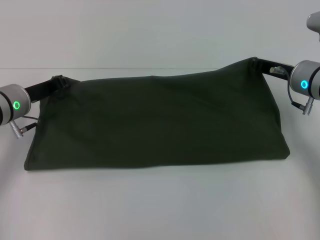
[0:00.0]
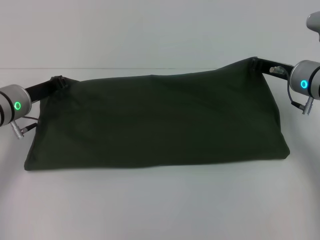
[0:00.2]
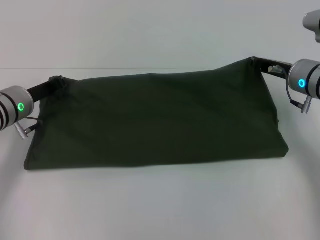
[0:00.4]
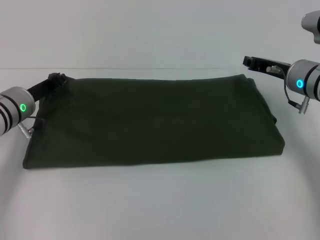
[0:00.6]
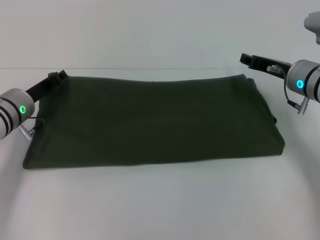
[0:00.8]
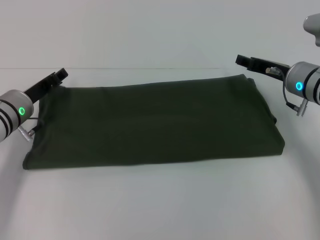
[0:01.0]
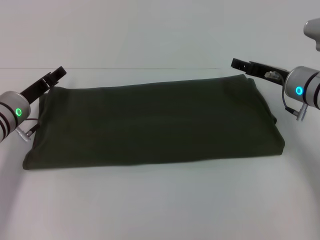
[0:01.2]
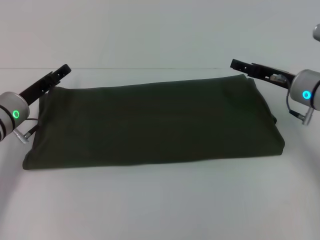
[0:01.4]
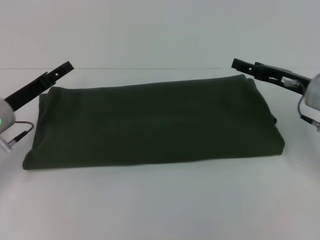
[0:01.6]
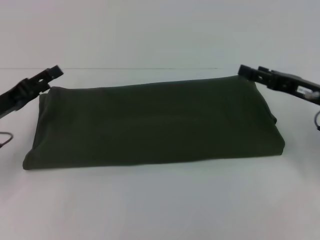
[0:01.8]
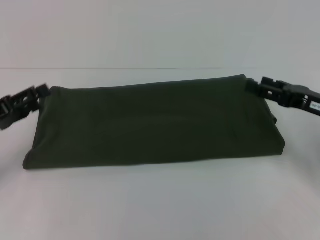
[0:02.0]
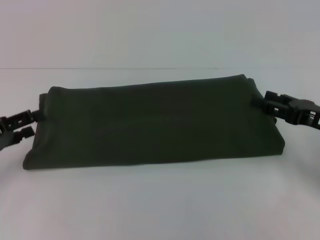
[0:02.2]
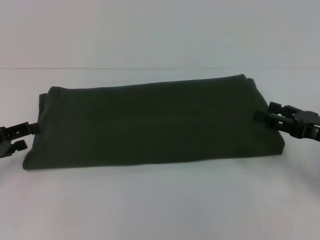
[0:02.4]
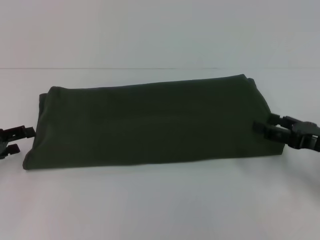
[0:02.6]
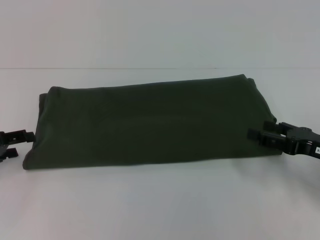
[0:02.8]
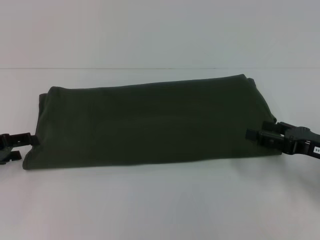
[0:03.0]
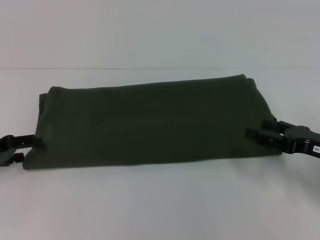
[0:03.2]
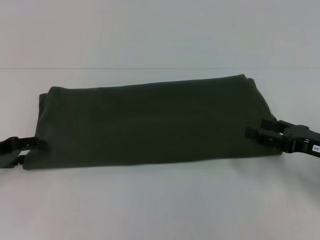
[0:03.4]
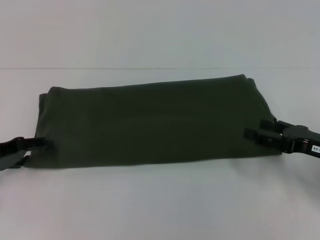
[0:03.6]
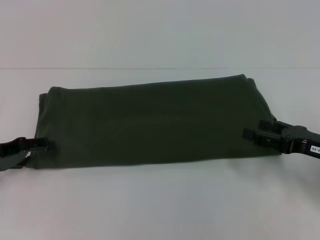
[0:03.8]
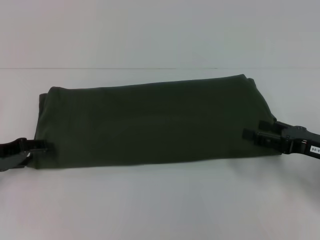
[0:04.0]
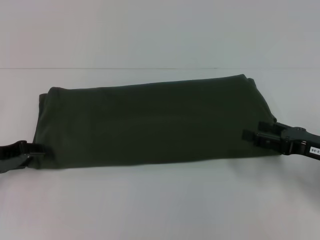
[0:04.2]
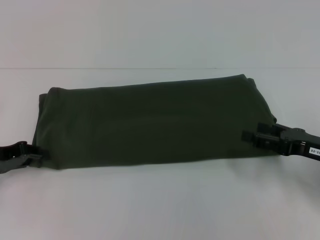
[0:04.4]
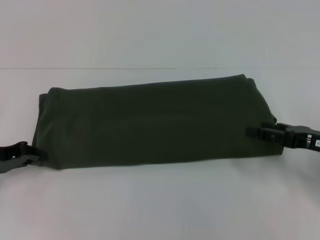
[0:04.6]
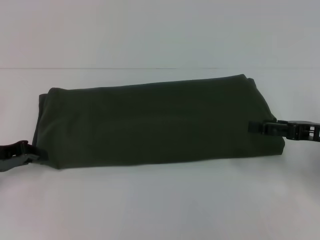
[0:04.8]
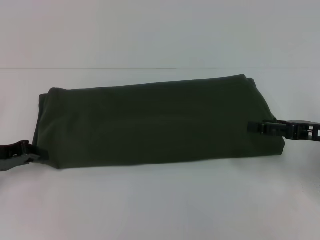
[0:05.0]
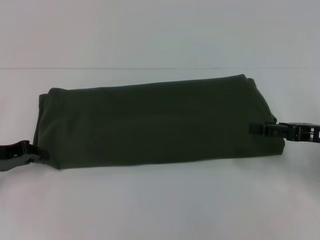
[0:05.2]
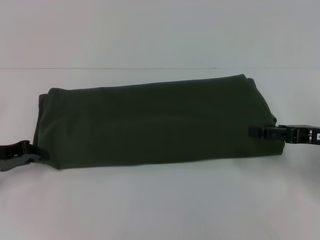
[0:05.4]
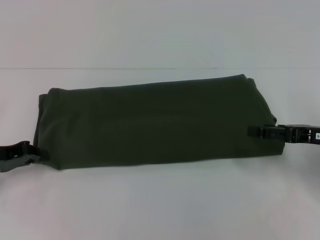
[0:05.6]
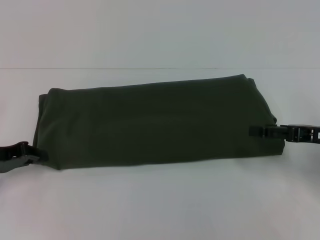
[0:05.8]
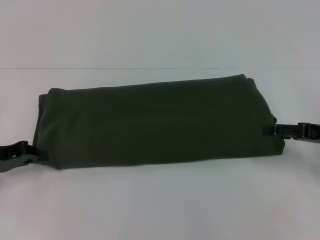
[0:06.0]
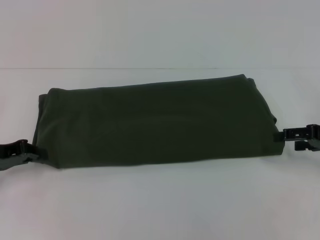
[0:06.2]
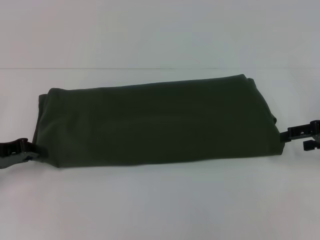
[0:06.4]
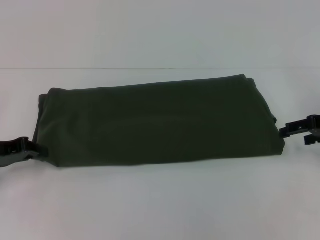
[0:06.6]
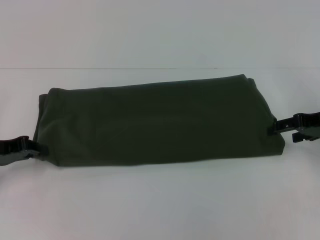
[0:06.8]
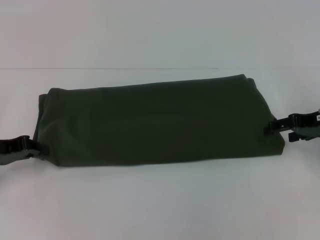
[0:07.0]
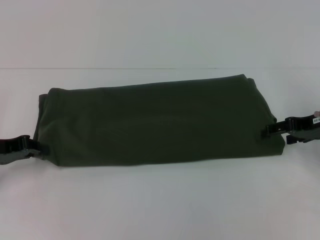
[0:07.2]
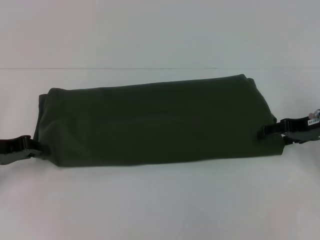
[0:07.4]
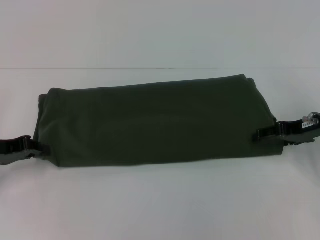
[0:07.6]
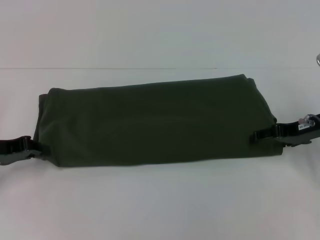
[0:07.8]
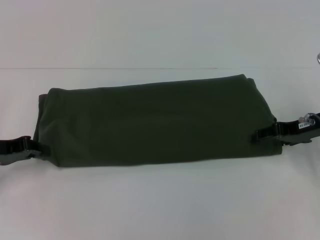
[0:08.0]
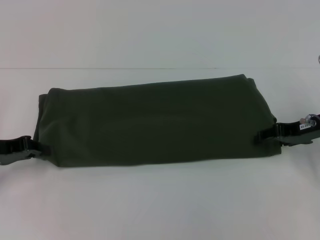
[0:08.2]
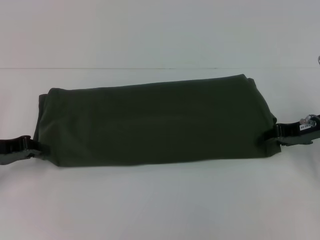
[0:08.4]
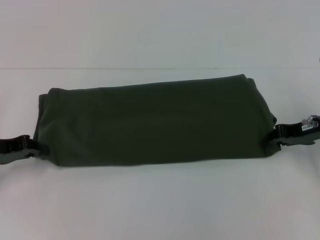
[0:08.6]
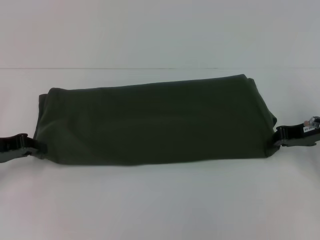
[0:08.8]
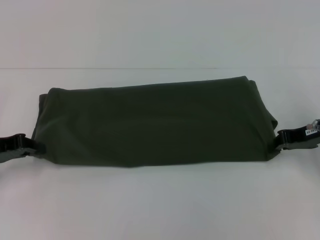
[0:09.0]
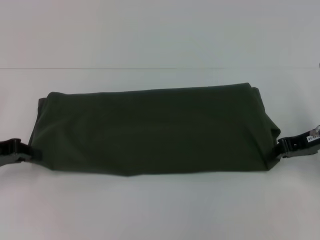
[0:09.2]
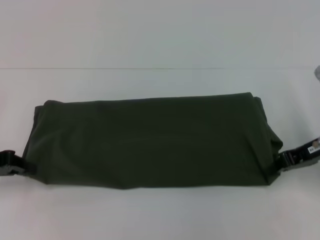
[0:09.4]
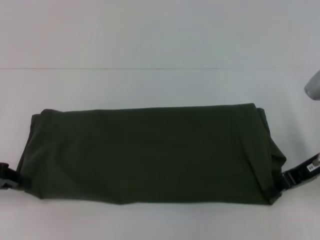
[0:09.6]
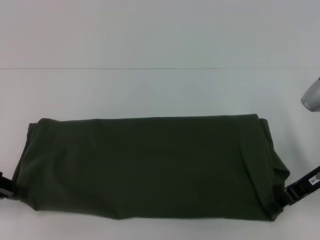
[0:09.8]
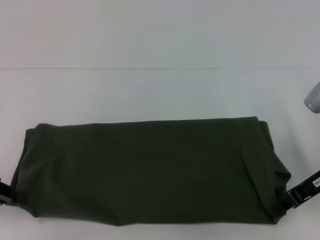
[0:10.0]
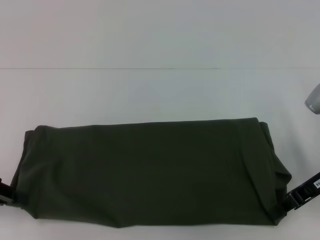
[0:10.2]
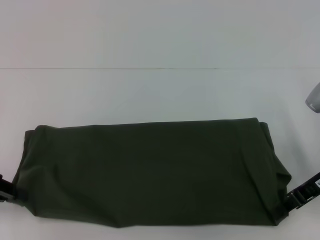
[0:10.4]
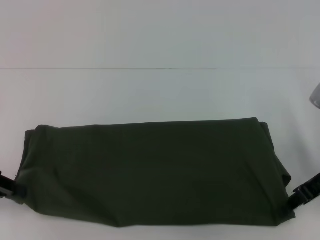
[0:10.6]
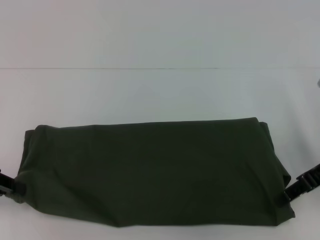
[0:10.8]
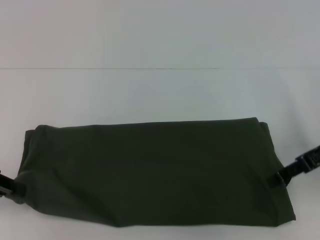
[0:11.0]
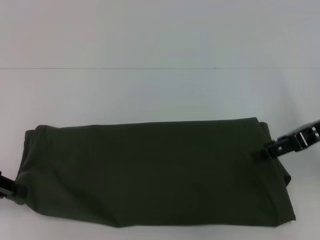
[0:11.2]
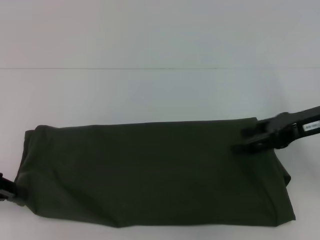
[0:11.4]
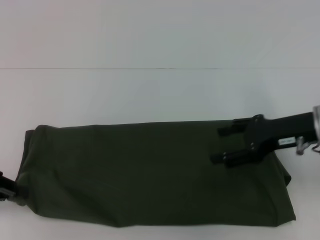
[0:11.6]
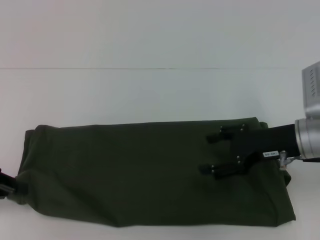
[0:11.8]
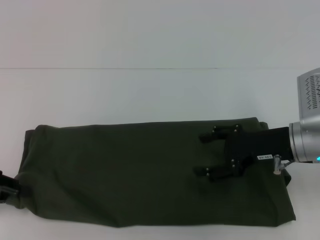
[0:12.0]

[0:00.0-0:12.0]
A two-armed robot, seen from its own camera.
0:00.0 to 0:01.6: The left gripper opens. Meanwhile the right gripper opens its fingers.
0:01.6 to 0:03.0: The right gripper shifts some 10 cm backward. Meanwhile the left gripper moves to the left, about 10 cm.
0:03.0 to 0:04.4: The left gripper closes its fingers.
0:04.4 to 0:06.0: The right gripper shifts by some 5 cm.
0:06.0 to 0:07.6: The right gripper travels forward by roughly 5 cm.
0:07.6 to 0:09.0: The right gripper closes.
0:09.0 to 0:10.4: The right gripper moves about 5 cm, while the left gripper moves roughly 5 cm.
0:10.4 to 0:12.0: The right gripper travels to the left by some 5 cm, reaches some 5 cm upward, then returns, and opens up.

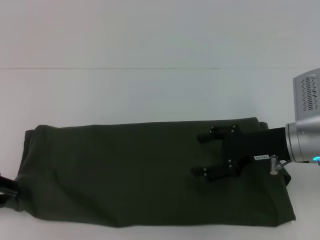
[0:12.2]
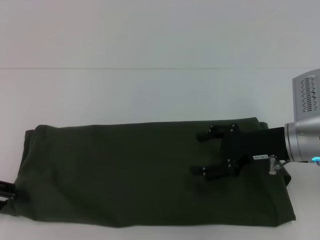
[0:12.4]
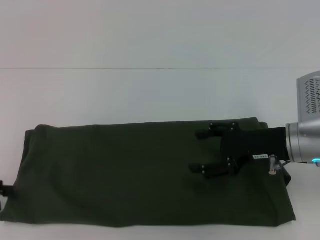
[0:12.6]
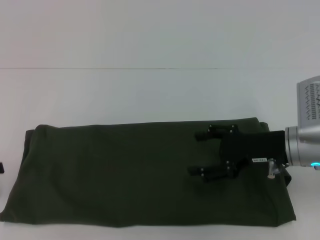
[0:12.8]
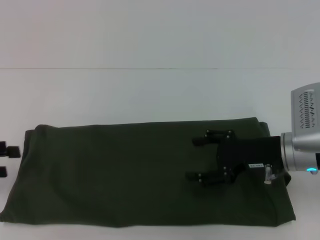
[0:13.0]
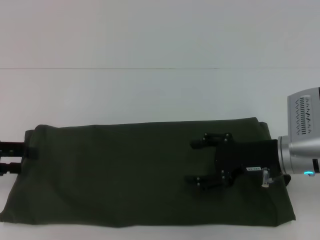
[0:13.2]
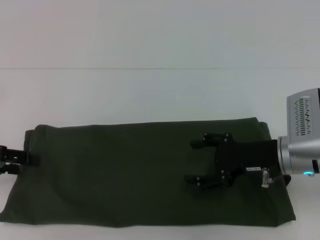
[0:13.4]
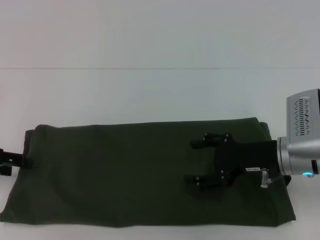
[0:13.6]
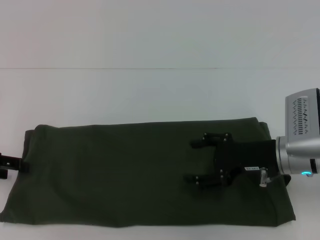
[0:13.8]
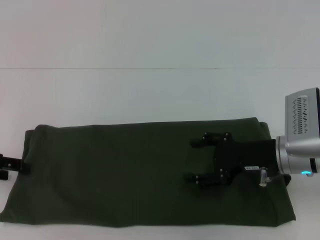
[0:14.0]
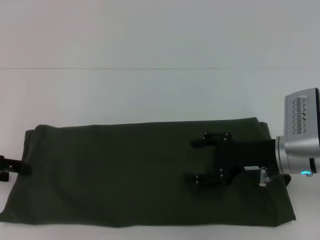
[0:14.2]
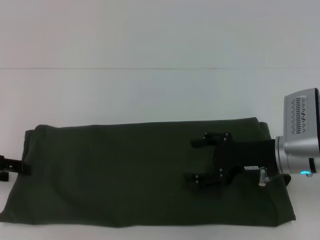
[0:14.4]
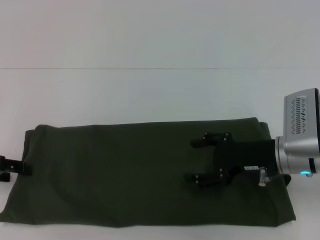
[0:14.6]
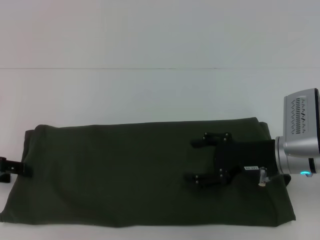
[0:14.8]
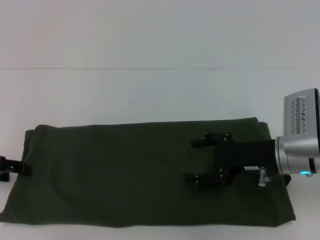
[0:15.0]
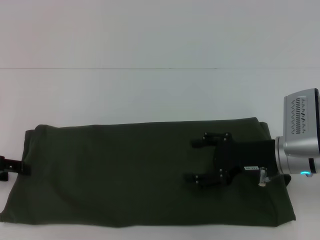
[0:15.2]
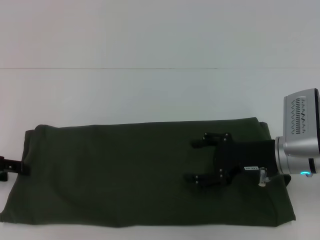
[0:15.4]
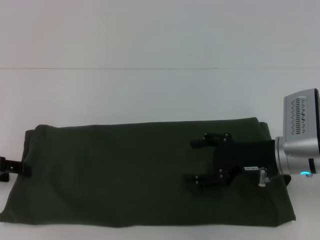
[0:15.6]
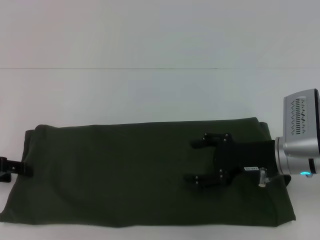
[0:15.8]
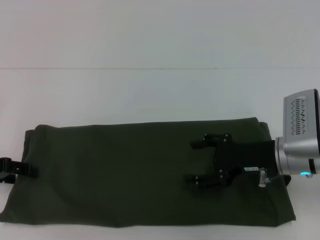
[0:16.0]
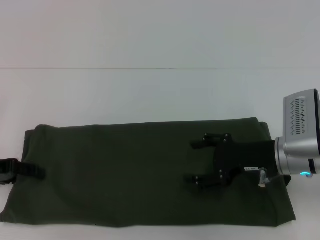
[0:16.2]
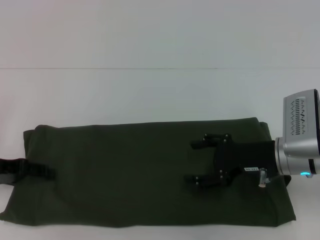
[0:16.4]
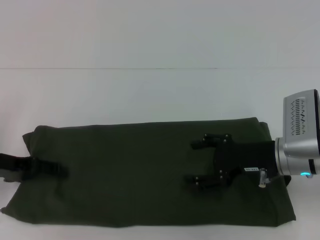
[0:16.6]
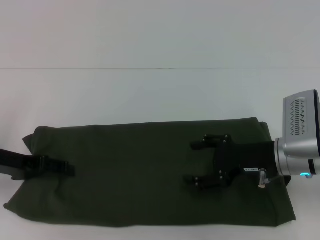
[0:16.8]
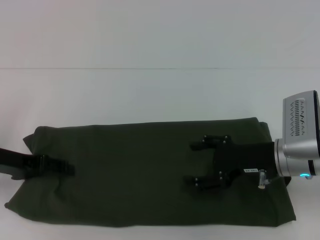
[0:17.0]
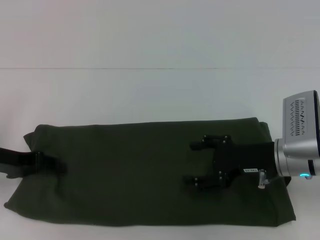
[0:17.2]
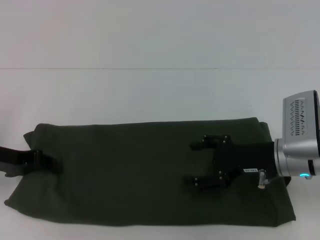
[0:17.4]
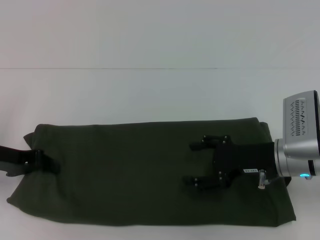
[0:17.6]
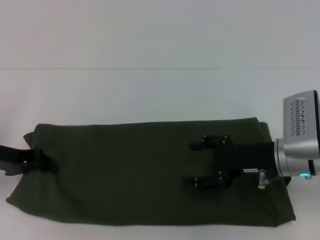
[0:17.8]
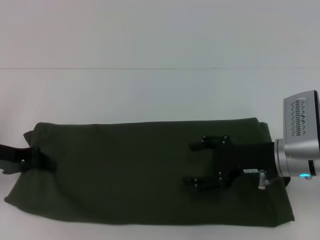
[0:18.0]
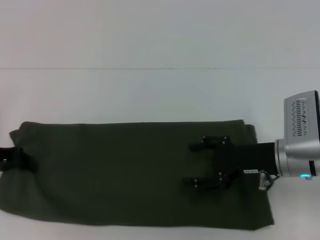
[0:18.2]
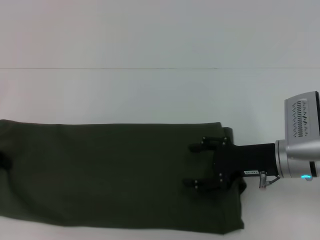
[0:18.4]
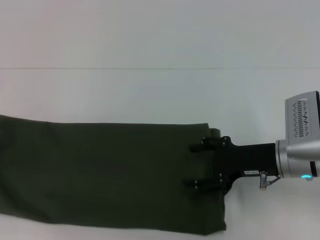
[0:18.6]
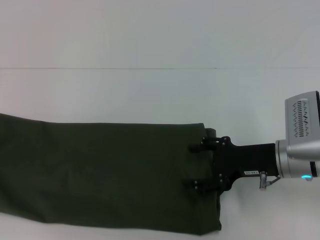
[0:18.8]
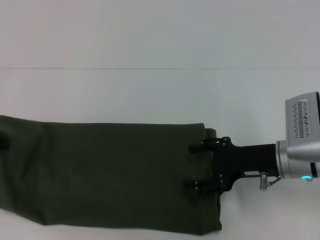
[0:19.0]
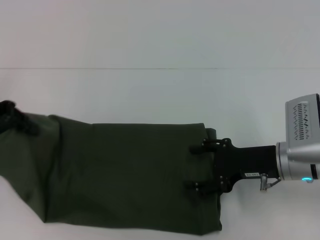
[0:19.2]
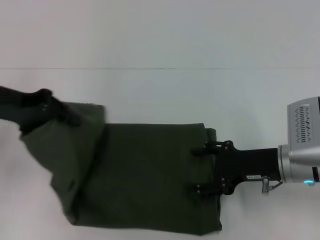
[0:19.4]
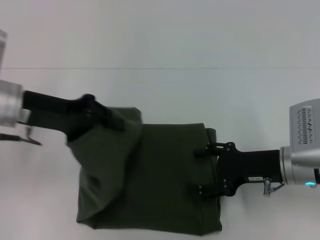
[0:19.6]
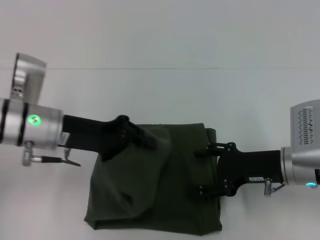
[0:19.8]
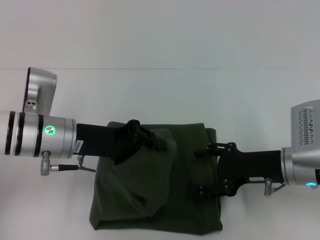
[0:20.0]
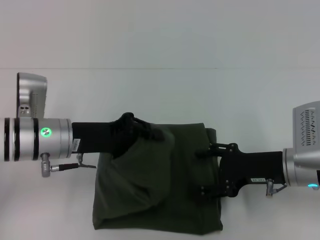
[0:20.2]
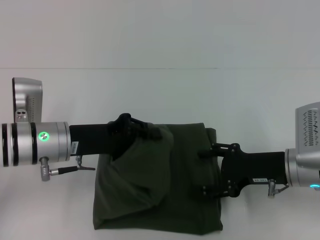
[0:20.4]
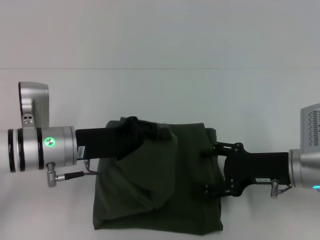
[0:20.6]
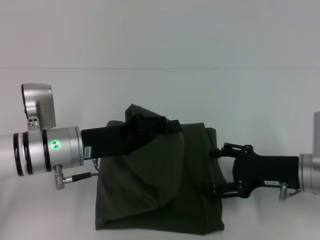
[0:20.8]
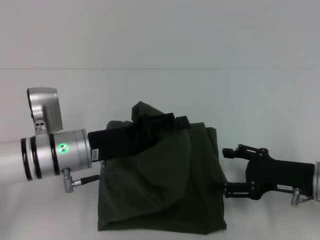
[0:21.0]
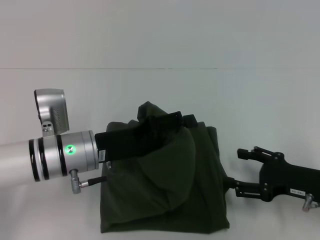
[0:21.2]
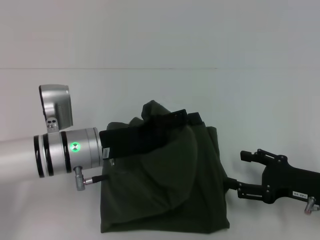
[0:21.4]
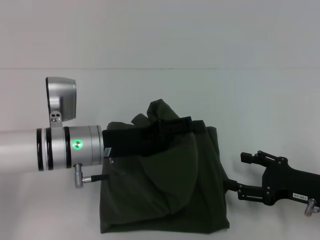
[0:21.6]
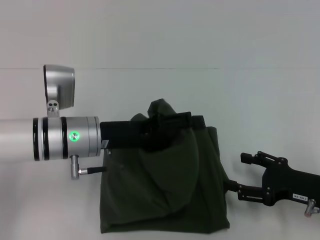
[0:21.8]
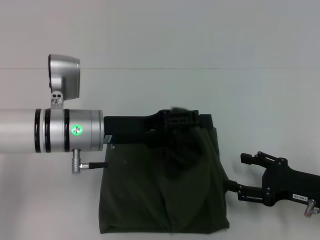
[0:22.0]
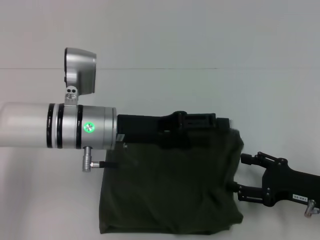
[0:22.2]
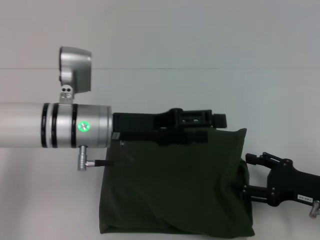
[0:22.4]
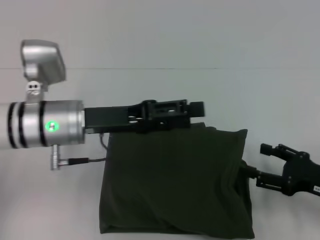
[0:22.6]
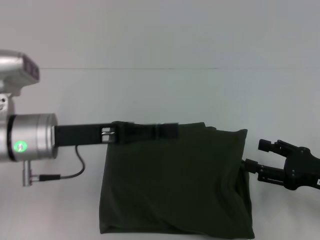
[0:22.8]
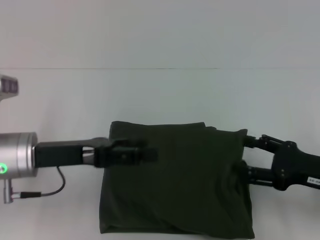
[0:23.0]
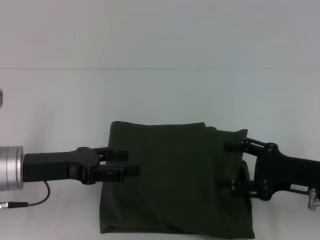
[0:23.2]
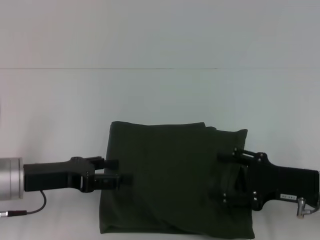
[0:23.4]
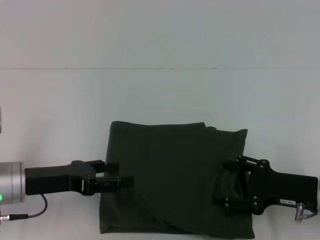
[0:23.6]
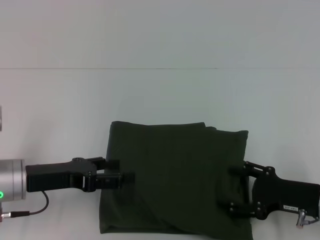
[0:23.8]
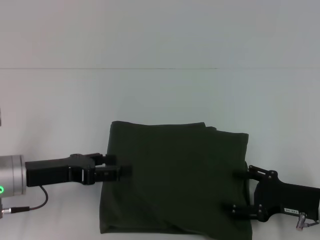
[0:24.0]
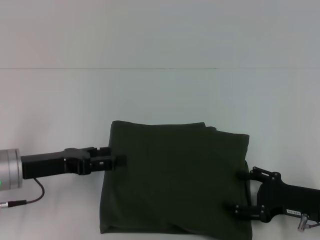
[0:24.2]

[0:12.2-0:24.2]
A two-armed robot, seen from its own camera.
Step, 0:12.2 to 0:22.6: Fold the clothes with your left hand.
0:12.2 to 0:13.8: The left gripper opens.
0:13.8 to 0:16.6: The grippers move only a little.
0:16.6 to 0:18.2: The left gripper closes.
0:18.2 to 0:19.8: The left gripper moves to the right, about 15 cm.
0:19.8 to 0:21.2: The right gripper shifts about 5 cm to the right; the left gripper heads downward, covering roughly 5 cm, and opens.
0:21.2 to 0:22.6: The left gripper travels upward by some 5 cm, and opens up.
0:22.6 to 0:24.2: The left gripper is displaced to the left and downward by about 10 cm.
